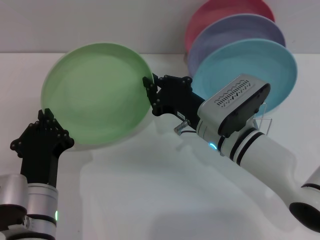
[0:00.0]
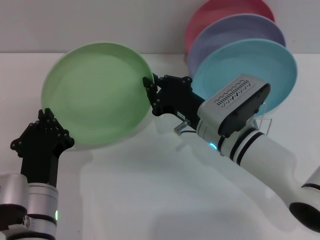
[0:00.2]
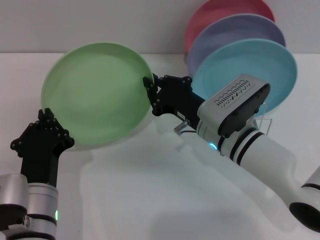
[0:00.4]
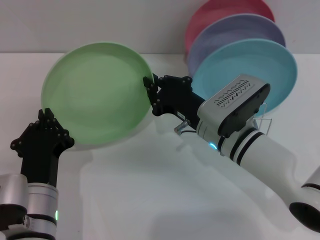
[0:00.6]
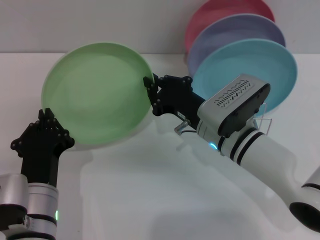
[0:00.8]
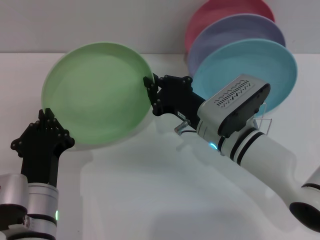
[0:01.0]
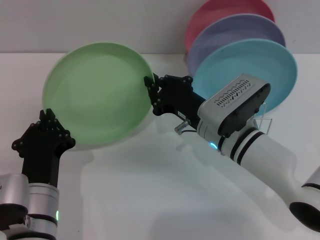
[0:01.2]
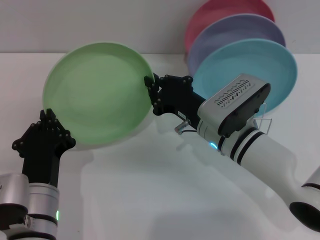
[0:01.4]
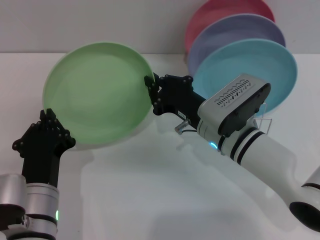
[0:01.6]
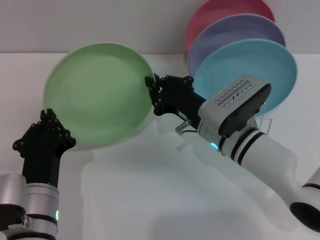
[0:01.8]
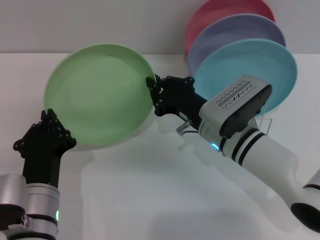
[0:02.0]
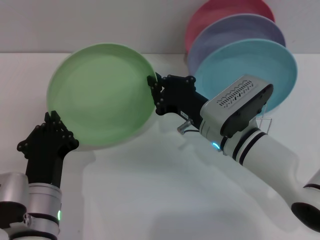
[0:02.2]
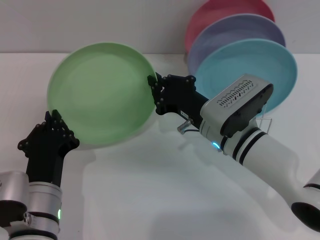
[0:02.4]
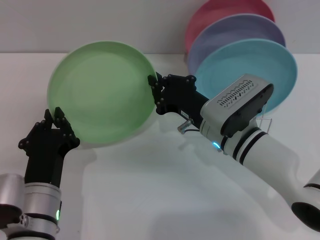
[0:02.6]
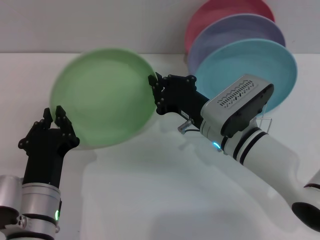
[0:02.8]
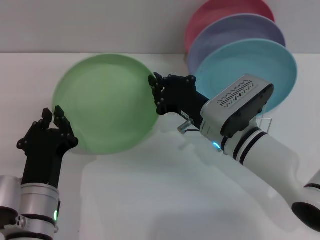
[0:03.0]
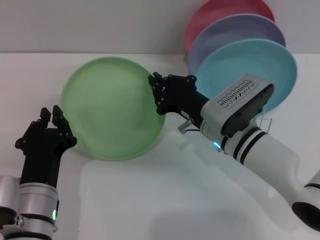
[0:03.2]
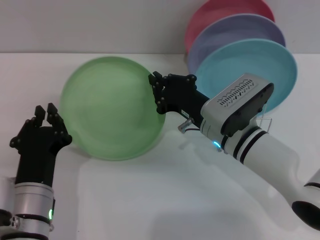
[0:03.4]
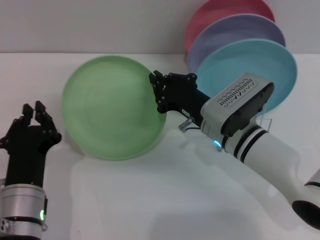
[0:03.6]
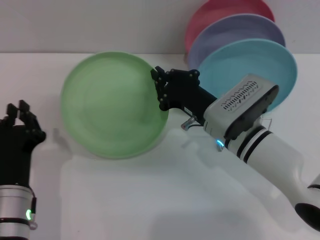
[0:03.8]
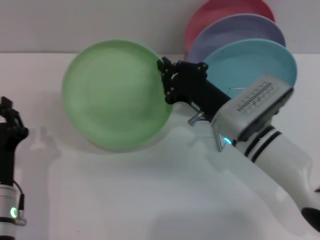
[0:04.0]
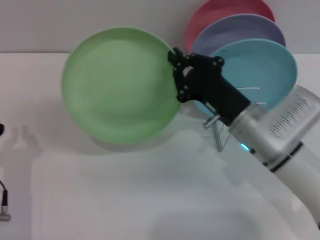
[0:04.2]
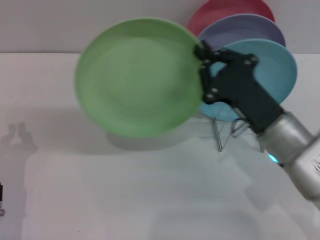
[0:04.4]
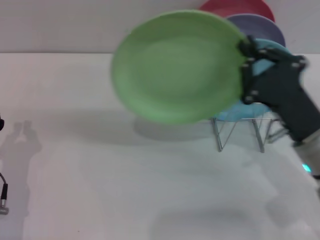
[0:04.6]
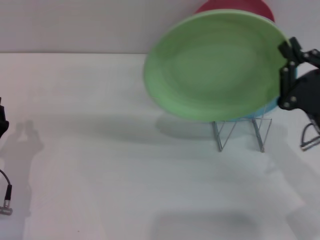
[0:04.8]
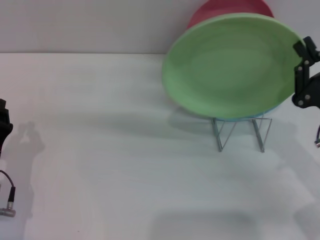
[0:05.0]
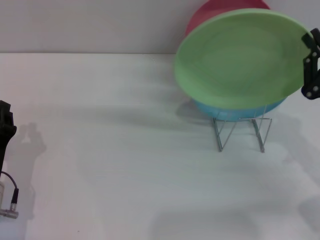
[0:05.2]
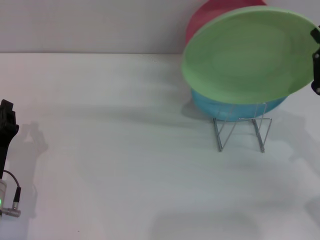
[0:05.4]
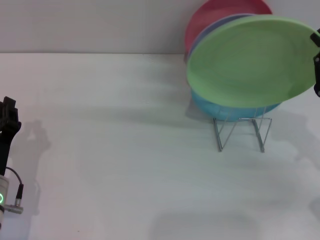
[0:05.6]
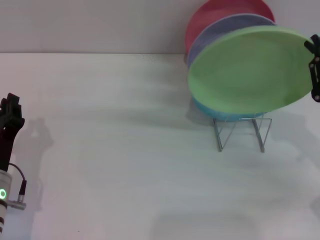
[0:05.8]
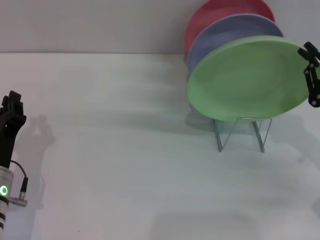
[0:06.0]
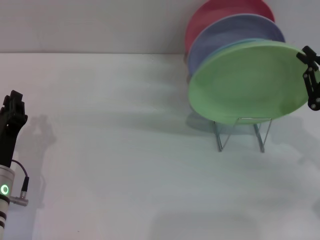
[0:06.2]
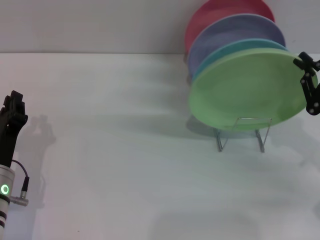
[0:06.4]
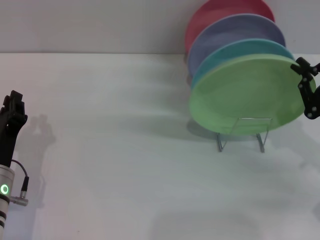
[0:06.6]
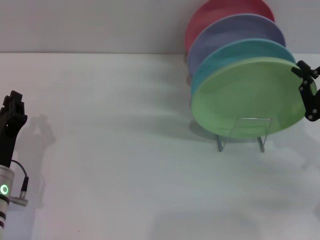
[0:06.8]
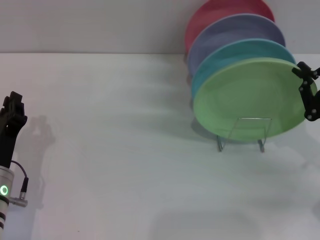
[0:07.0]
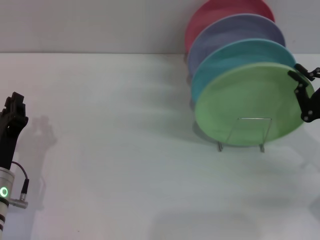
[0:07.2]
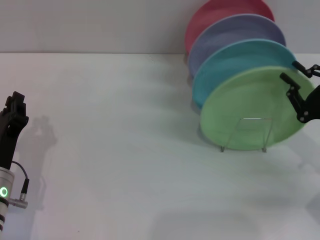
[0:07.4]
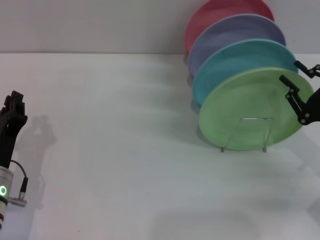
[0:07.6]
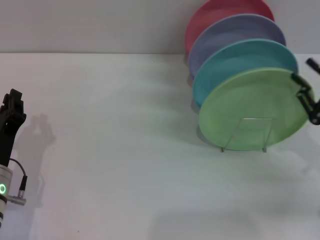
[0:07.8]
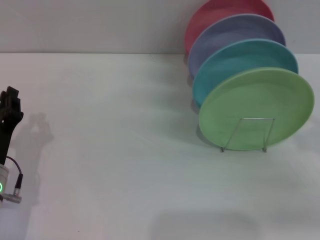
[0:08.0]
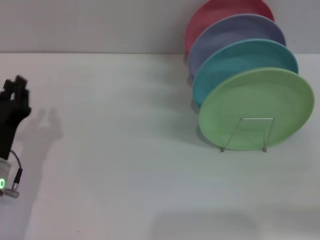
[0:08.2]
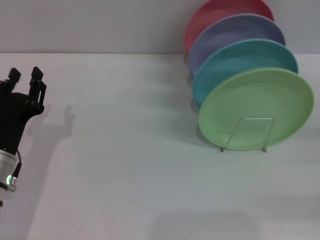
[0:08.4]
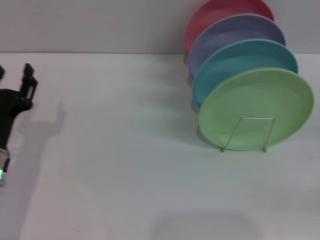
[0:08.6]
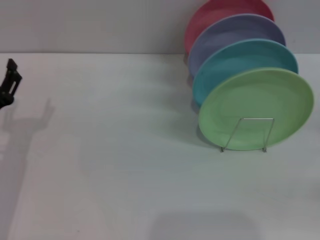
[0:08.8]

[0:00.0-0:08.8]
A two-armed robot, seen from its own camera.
Task of the whole recording: Grip the plate with one hand, pass it to the other, then set it on the shelf.
Step, 0:00.0 to 0:03.4: Pass the plate from the left gripper to the right gripper.
Step, 0:03.6 to 0:08.2: Place the plate on the shelf with the right gripper.
0:00.0 to 0:01.4: Both grippers stay put.
0:01.4 to 0:03.0: The grippers stay close to where they were, moving slightly.
0:03.0 to 0:04.4: The right gripper shifts roughly 10 cm to the right and backward; the left gripper is displaced to the left by about 10 cm.
0:04.4 to 0:05.8: The right gripper moves to the right, some 15 cm.
0:05.8 to 0:07.4: The grippers move only a little.
0:07.4 to 0:08.8: The right gripper goes about 10 cm to the right, and opens its fingers. Meanwhile the left gripper changes place by some 5 cm, and opens.

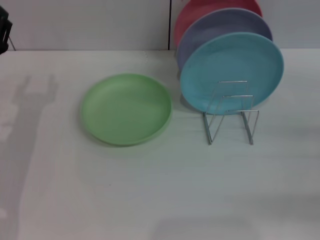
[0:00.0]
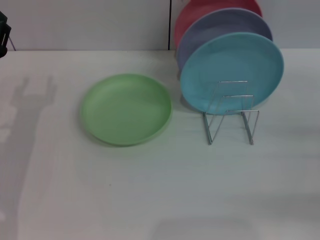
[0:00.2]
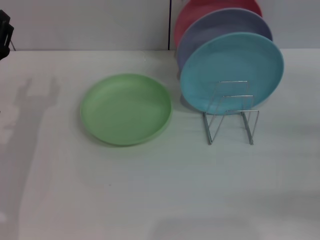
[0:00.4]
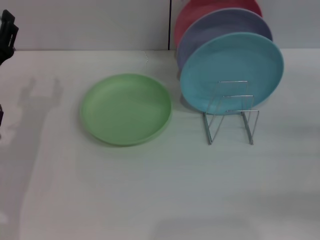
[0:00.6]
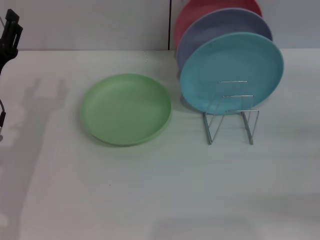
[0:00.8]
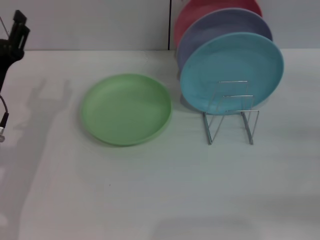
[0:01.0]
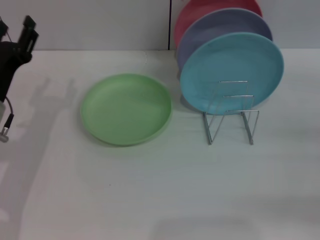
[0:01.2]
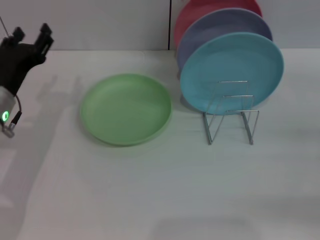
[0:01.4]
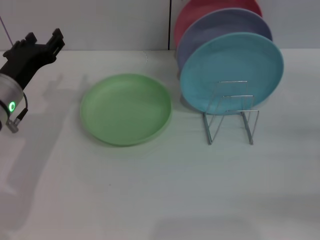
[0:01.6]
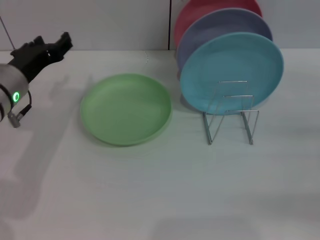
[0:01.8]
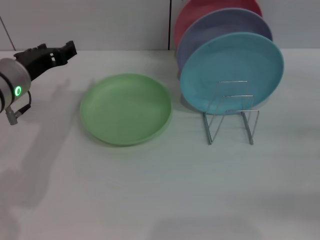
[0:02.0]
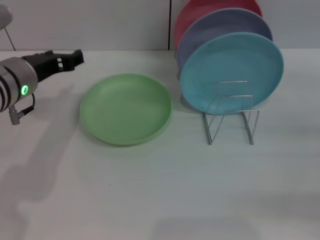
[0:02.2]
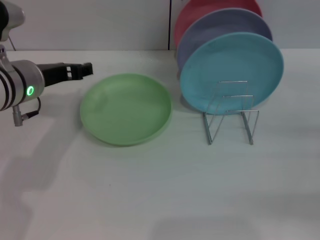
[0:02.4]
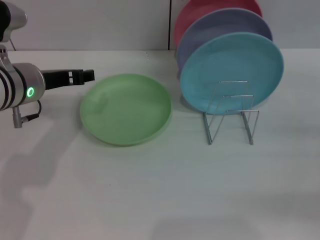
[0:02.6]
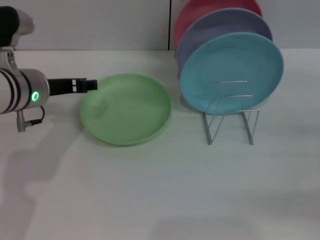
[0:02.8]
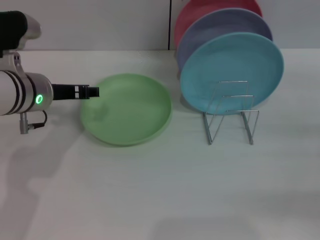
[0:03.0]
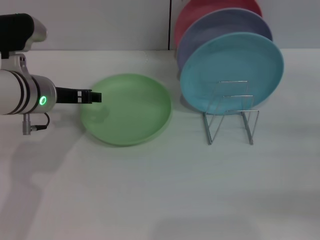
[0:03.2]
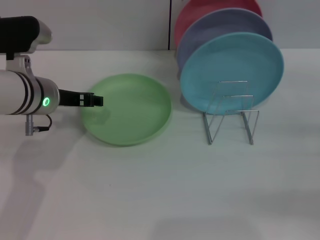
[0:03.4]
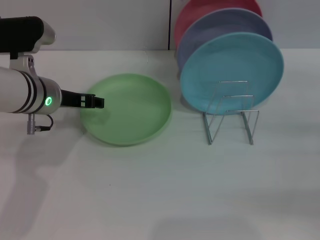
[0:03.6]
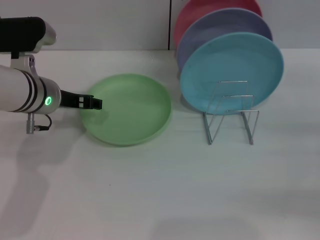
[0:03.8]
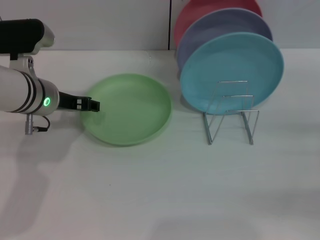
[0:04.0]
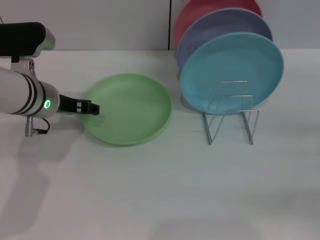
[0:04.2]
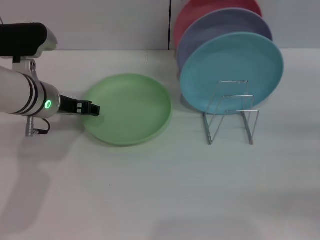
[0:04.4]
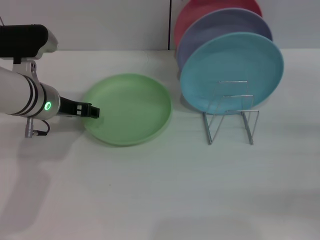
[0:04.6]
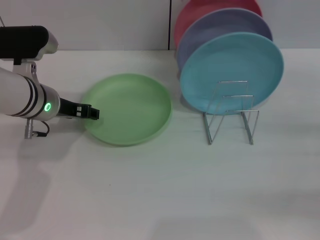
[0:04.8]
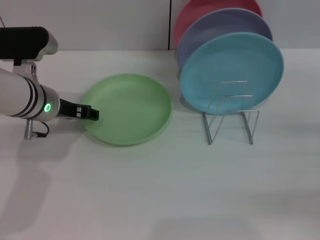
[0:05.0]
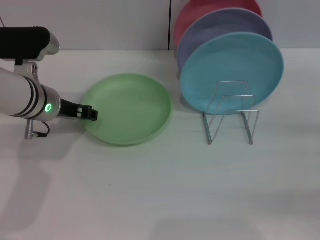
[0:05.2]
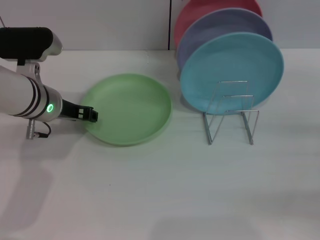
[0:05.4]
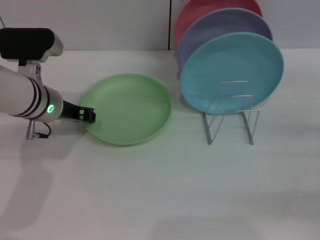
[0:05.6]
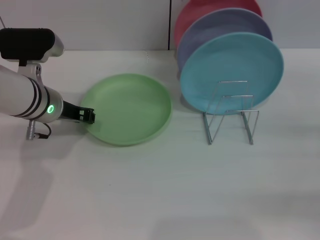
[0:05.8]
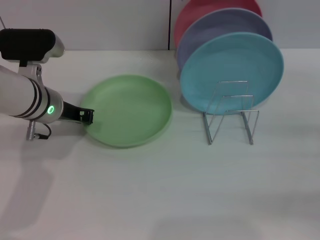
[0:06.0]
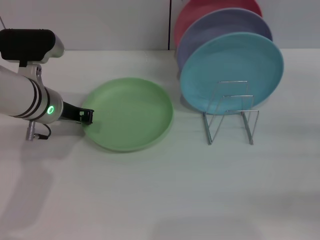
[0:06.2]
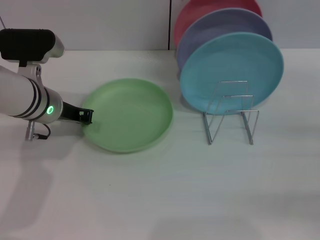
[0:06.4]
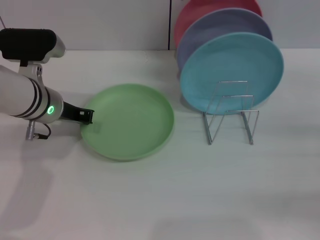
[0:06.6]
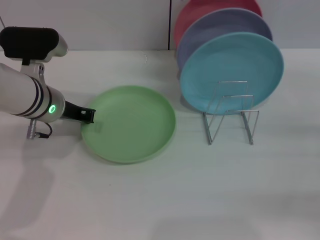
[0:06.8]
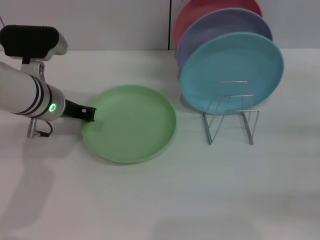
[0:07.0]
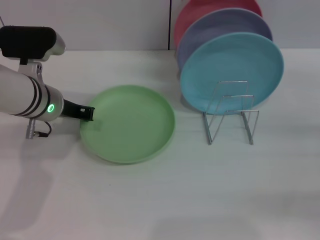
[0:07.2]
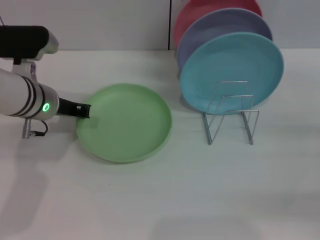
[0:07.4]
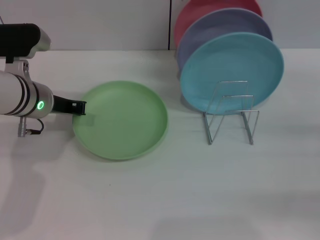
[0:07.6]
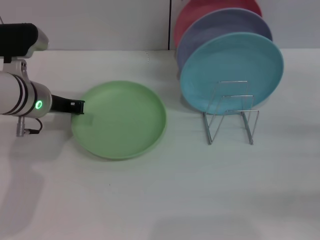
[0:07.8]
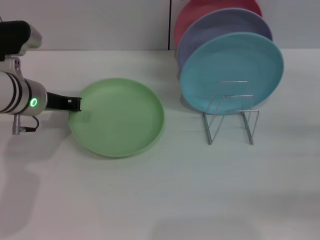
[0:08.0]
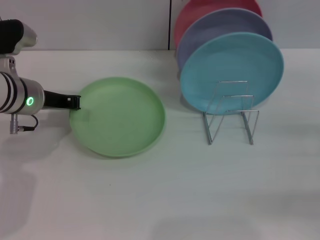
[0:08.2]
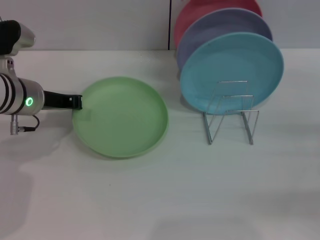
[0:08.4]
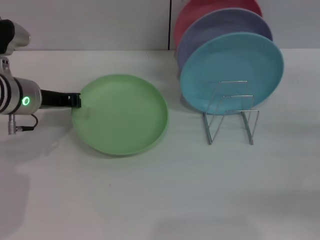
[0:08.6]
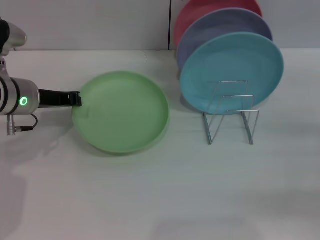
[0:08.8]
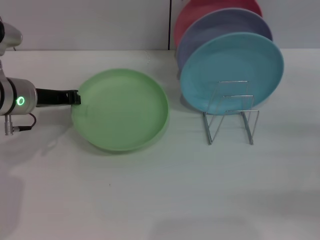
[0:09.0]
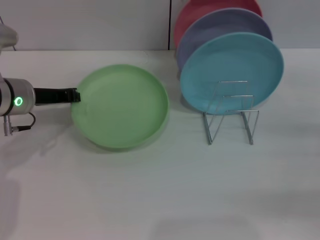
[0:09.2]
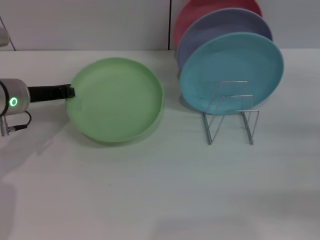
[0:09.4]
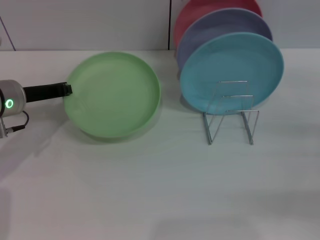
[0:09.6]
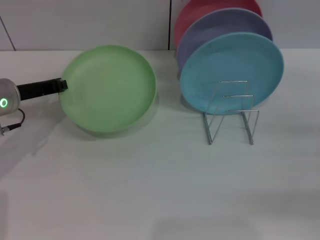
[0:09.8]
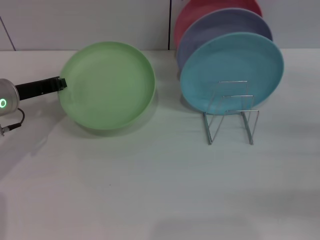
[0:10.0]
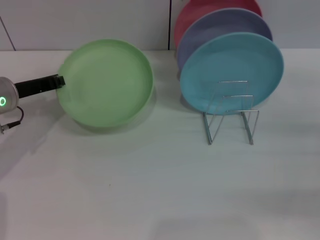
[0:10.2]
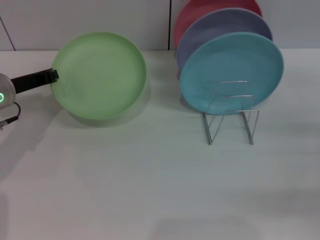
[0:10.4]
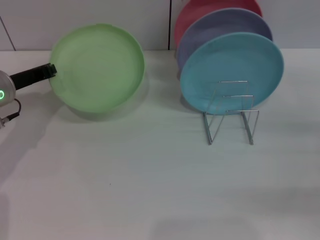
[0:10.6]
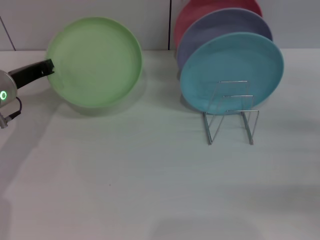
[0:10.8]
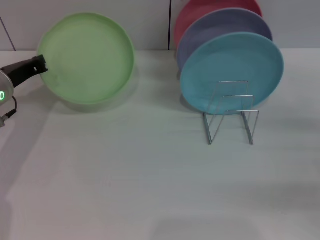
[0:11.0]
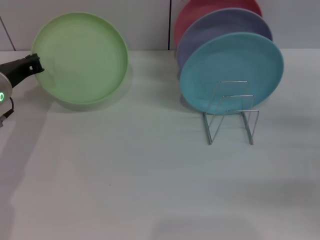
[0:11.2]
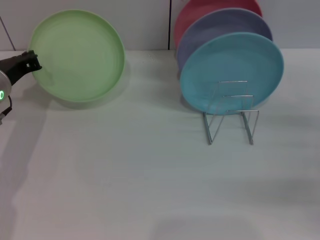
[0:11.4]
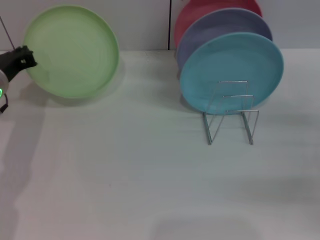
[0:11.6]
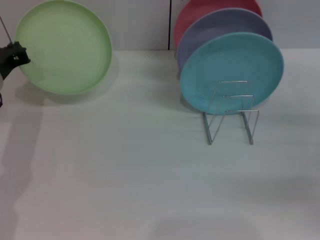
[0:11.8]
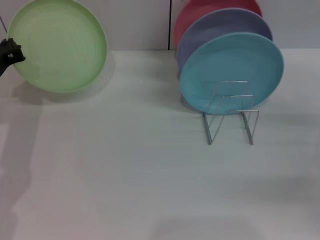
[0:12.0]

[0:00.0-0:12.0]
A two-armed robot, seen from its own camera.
Task of the whole recording: Grip the plate with one hand, pass it to the other, then set it on the shelf.
Step, 0:00.0 to 0:10.2: Pick up the plate with the left gripper.
0:01.6 to 0:03.0: The left gripper ends up about 5 cm from where it was.
0:03.0 to 0:04.4: The grippers move only a little.
0:04.4 to 0:06.0: The left gripper closes.
0:06.0 to 0:09.0: The grippers make only small movements.
0:09.0 to 0:10.4: The grippers move only a little.

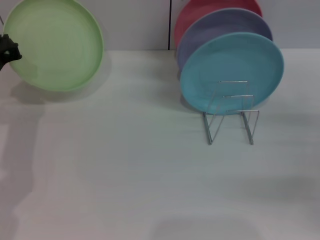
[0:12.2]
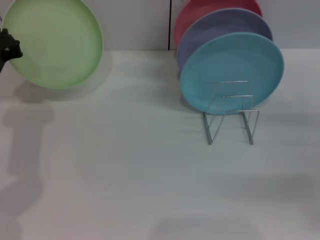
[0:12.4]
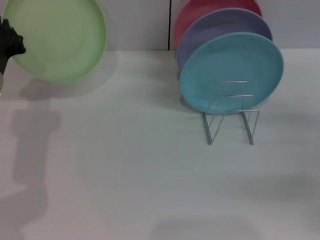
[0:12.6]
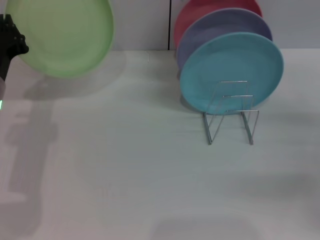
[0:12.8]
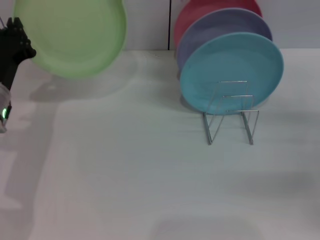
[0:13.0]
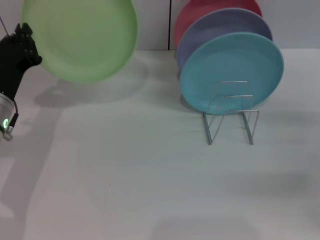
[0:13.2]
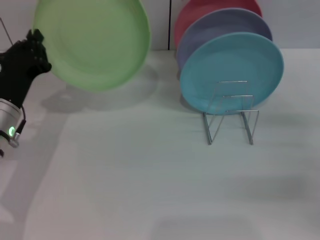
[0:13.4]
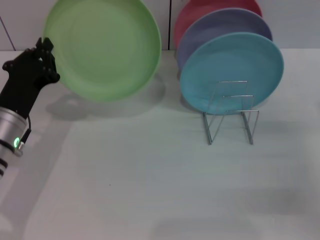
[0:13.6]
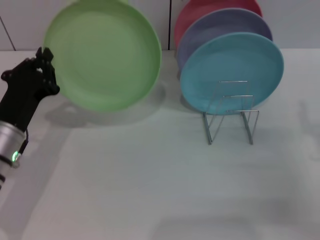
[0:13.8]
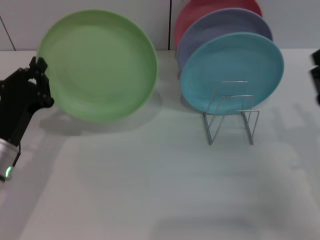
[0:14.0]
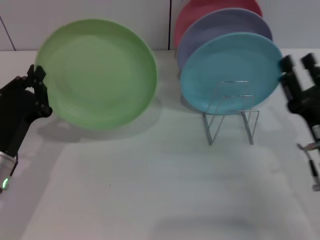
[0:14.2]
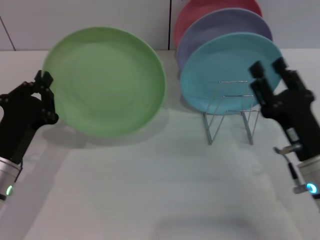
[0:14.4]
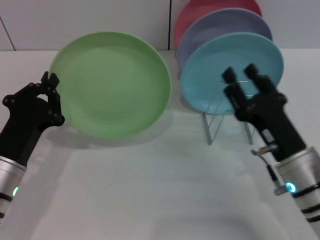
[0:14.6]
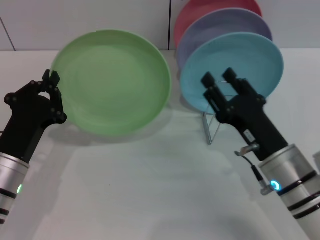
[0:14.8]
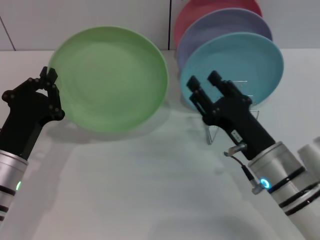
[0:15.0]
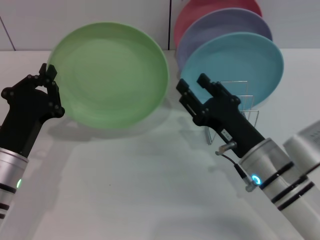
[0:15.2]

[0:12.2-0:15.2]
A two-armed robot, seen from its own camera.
Task of the whole recording: Grip the plate with one hand, pass it to the other, then set it on the shelf.
0:12.2 to 0:13.8: The left gripper travels backward and downward by some 10 cm. The right gripper travels to the left by some 5 cm.
0:13.8 to 0:15.2: The right gripper heads to the left, covering about 15 cm.
